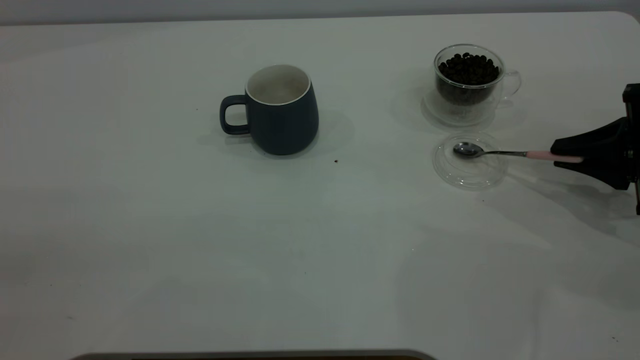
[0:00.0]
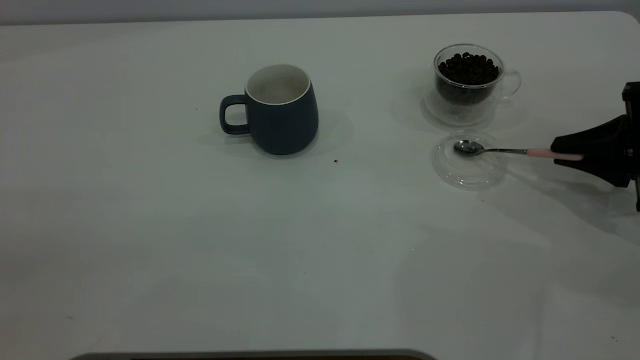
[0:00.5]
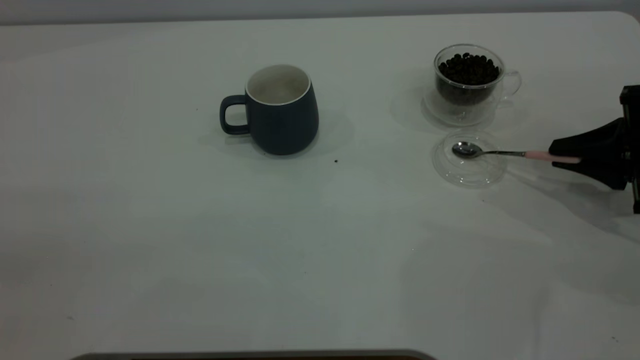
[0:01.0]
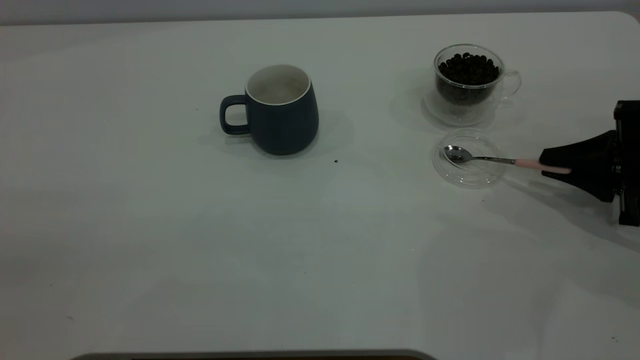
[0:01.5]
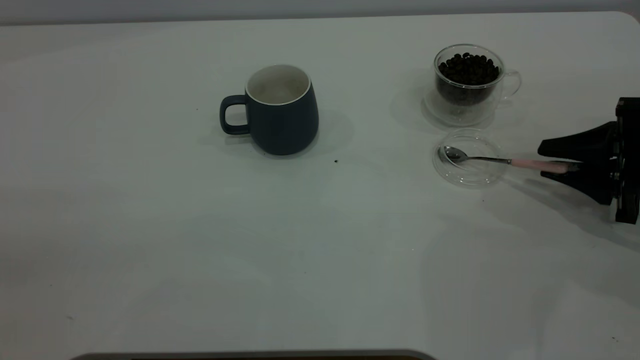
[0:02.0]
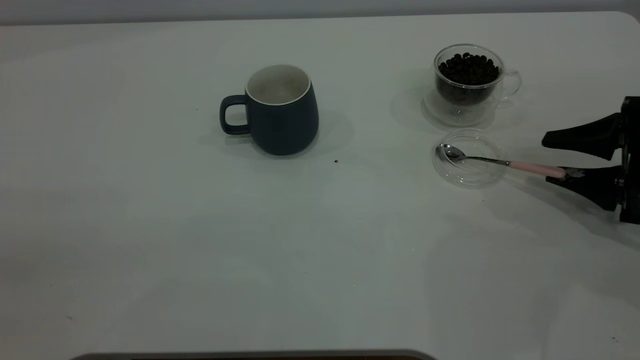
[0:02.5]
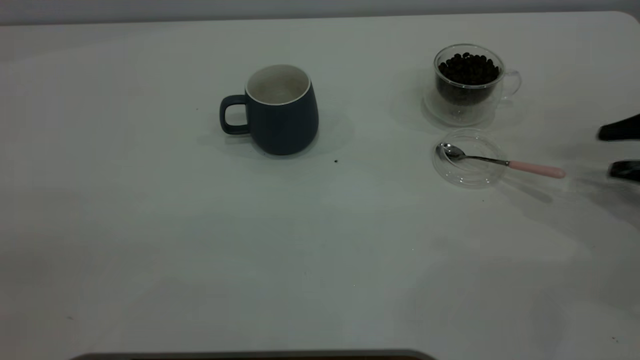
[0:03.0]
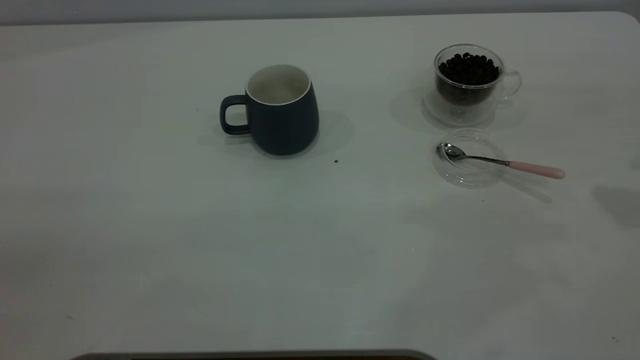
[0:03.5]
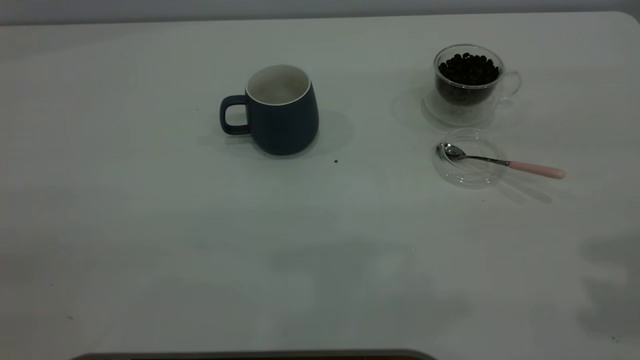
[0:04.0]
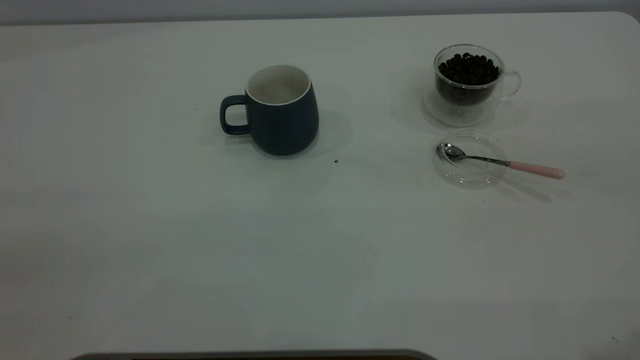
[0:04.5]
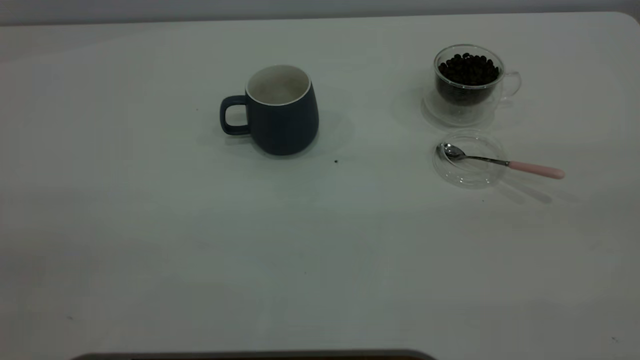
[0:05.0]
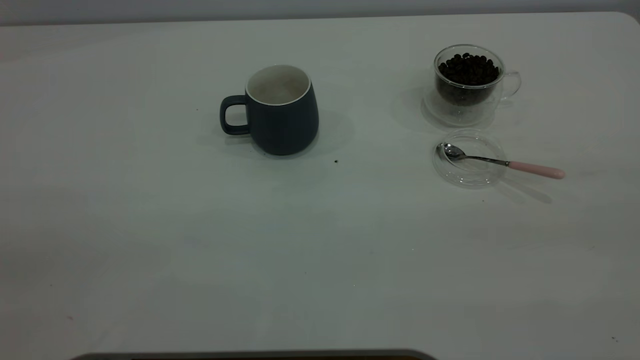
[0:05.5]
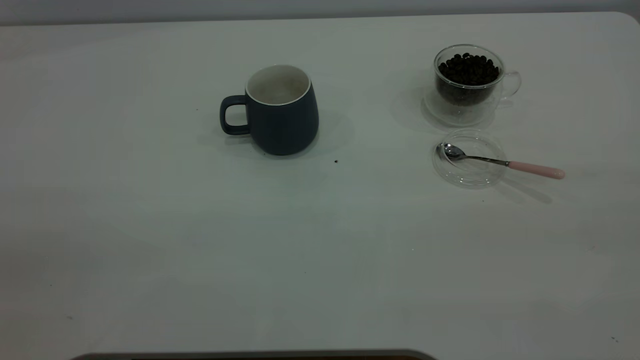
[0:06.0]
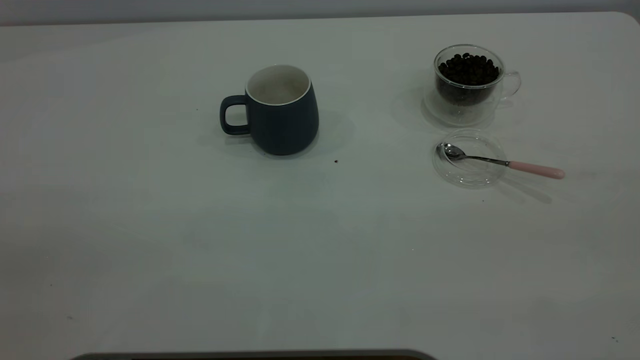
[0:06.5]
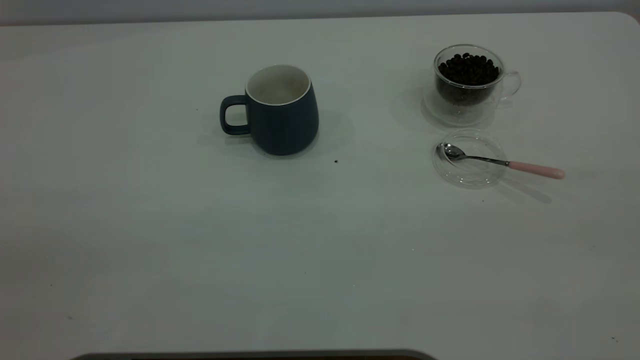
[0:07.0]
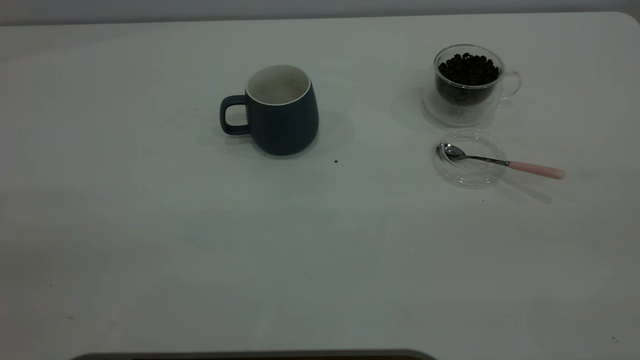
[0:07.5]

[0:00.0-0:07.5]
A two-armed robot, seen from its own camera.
Task of the whole recording: the left gripper place the grey cup in the center of the table, the right gripper take the pink spoon from the cup lid and scoop out the coffee beans from the coffee cup and put them into the grey cup, the right gripper put the spoon back into the cup lid.
Step, 0:00.0 to 0:02.5: Place the spoon back in its original place.
0:00.0 to 0:02.0: The right gripper opens.
0:02.0 to 0:04.0: The right gripper heads upward, covering approximately 30 cm.
